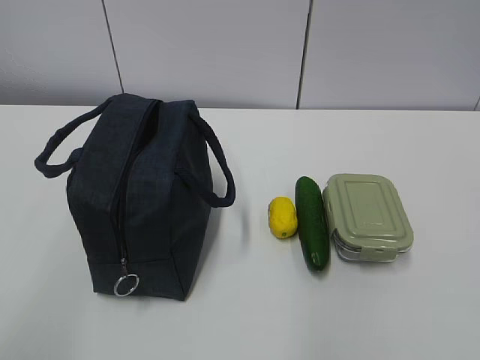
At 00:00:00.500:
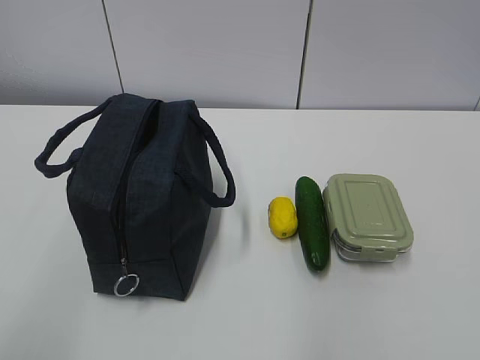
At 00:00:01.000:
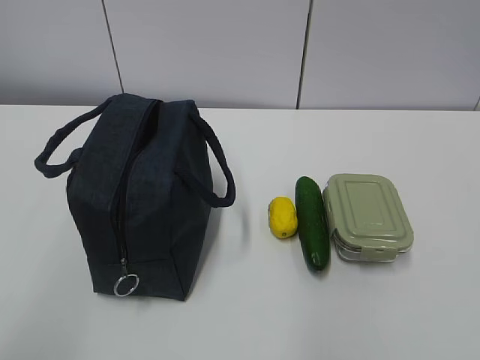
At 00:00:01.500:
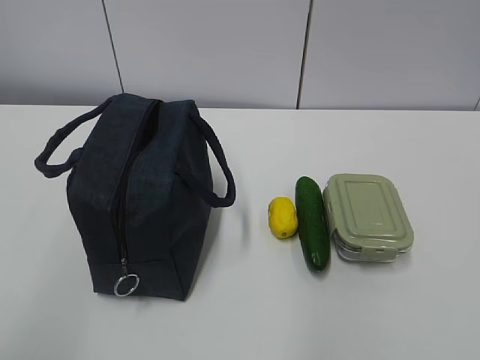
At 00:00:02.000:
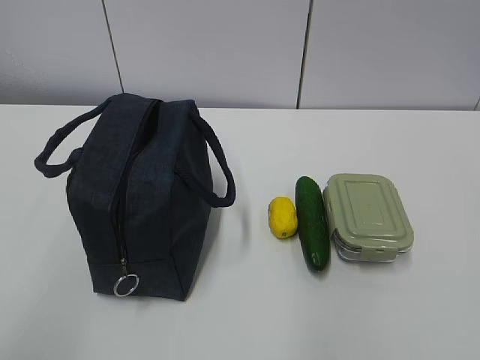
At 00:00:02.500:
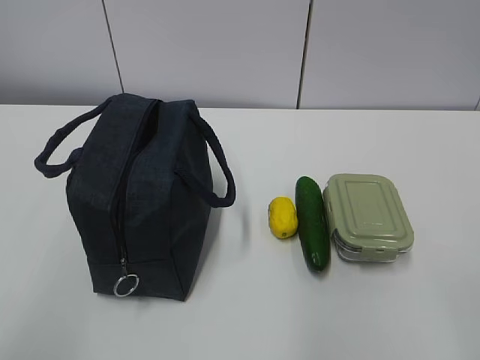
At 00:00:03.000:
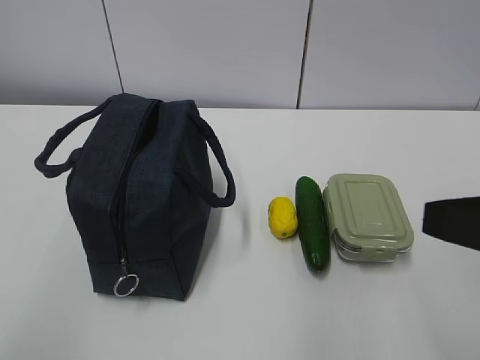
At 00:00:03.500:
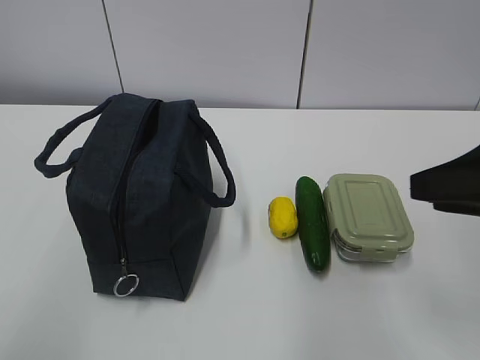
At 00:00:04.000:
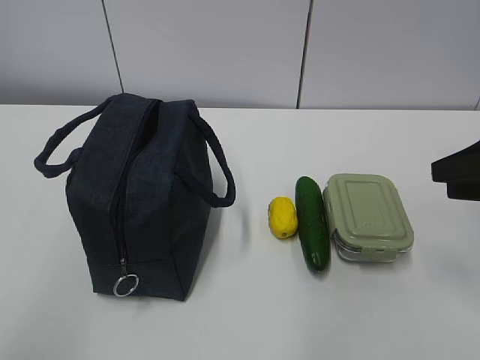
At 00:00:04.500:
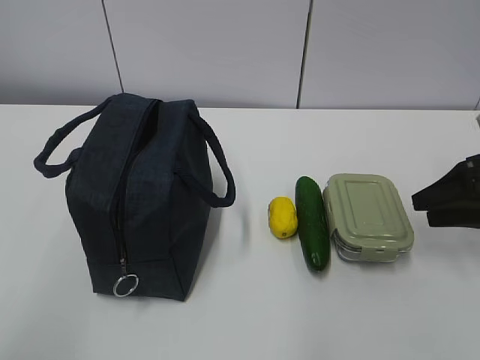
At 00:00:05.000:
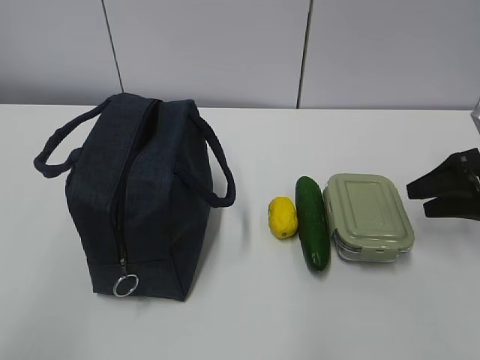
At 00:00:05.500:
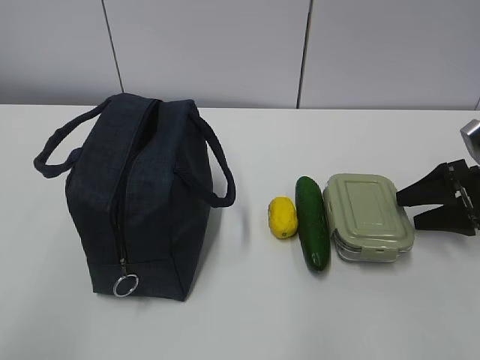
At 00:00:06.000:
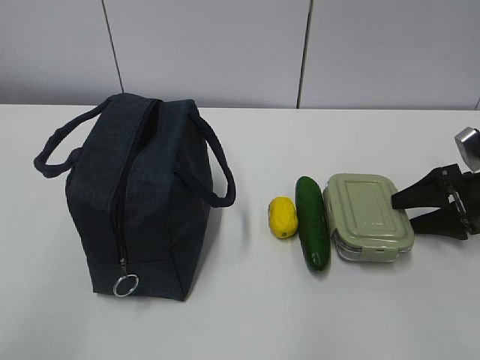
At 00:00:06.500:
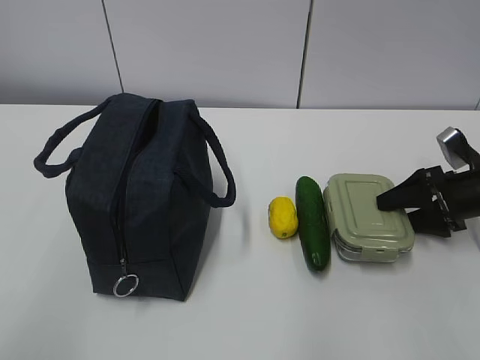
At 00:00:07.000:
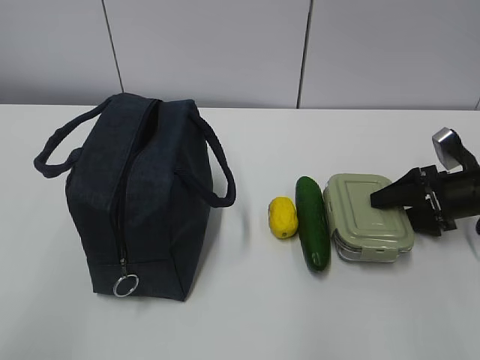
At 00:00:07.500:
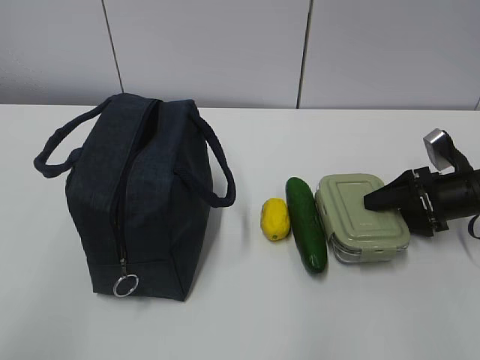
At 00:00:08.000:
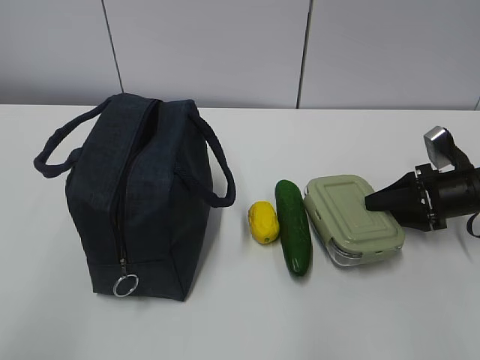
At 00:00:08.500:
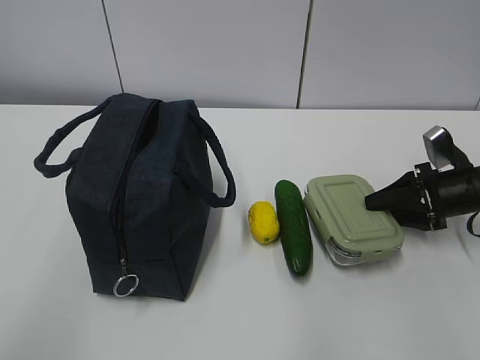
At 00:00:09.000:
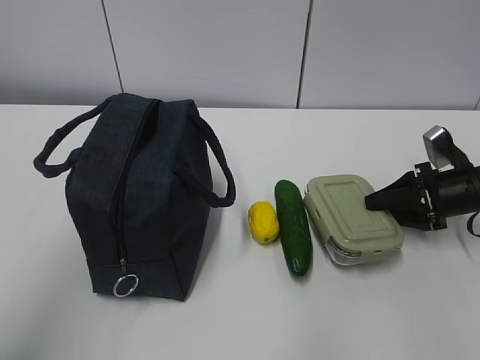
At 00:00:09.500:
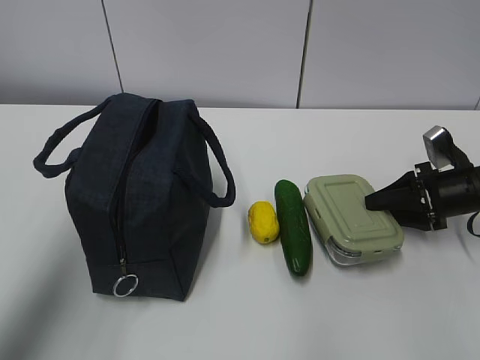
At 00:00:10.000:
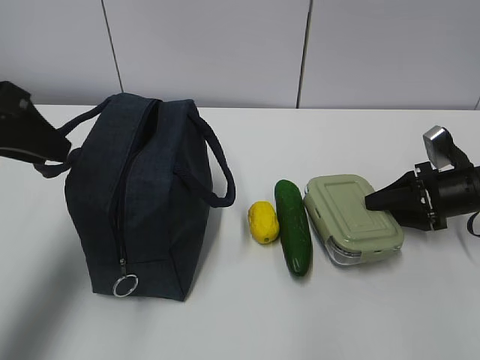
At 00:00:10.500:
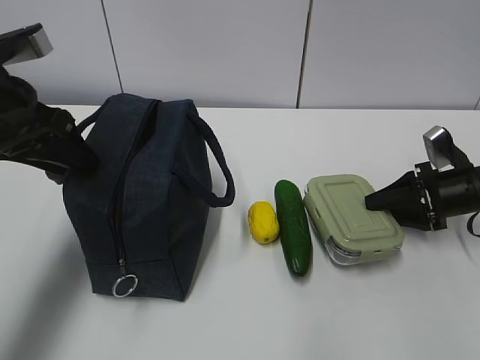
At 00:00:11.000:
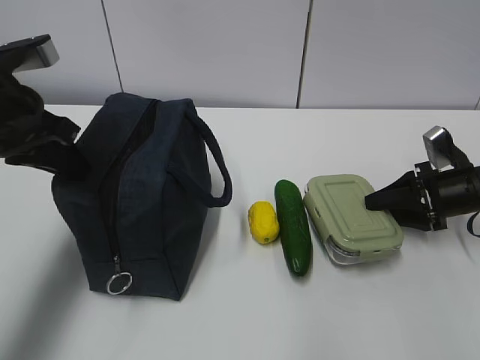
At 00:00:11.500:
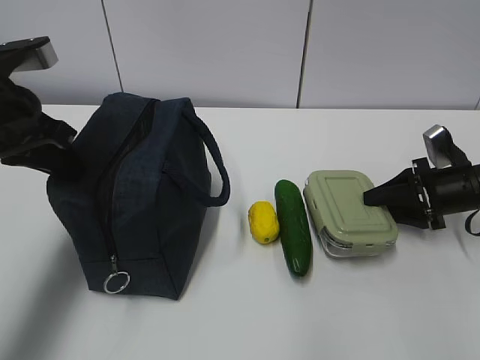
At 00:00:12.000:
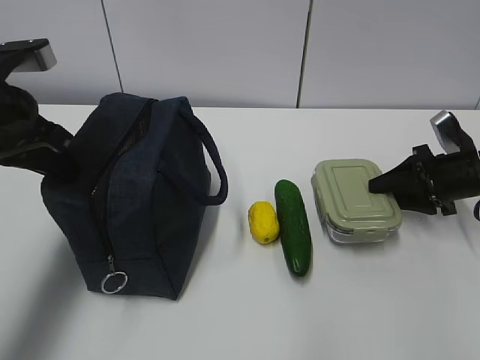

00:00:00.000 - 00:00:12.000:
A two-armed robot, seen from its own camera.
Step, 00:00:00.000 - 00:00:09.000: Grab the lunch box with your right hand.
00:00:02.000 - 00:00:04.000: The right gripper moves forward, some 30 cm.
00:00:04.000 - 00:00:06.000: The right gripper is displaced downward and forward by roughly 15 cm.
00:00:06.000 - 00:00:08.000: The right gripper closes its fingers.
00:00:08.000 - 00:00:10.000: The left gripper shifts about 25 cm forward.
00:00:10.000 - 00:00:12.000: The left gripper moves roughly 5 cm, and closes.

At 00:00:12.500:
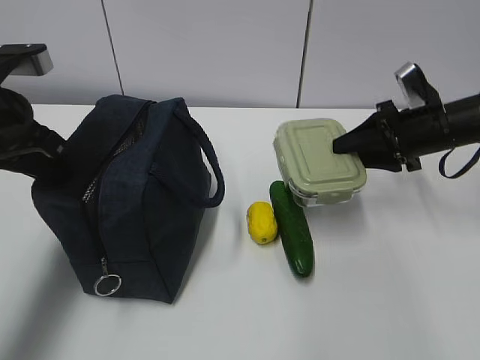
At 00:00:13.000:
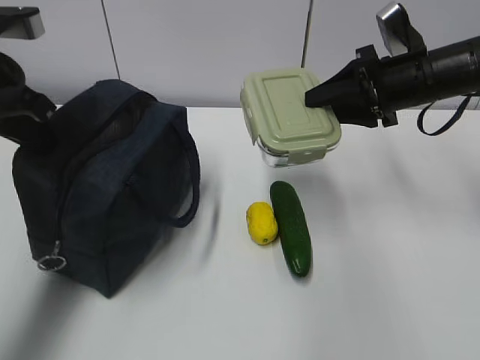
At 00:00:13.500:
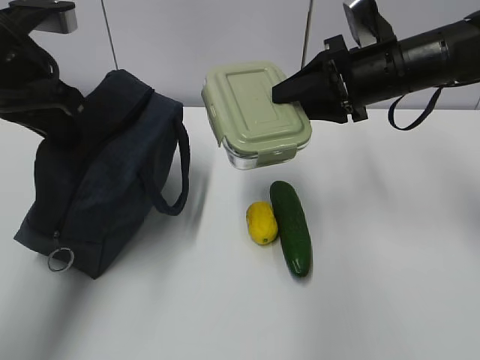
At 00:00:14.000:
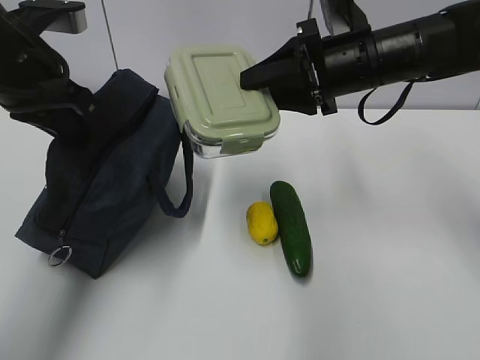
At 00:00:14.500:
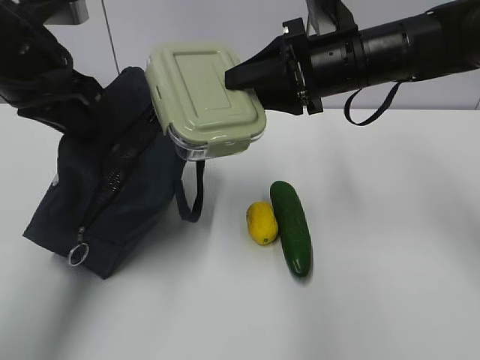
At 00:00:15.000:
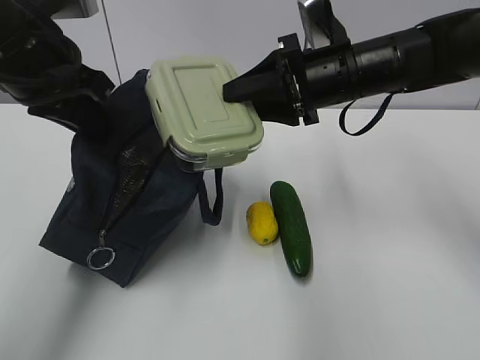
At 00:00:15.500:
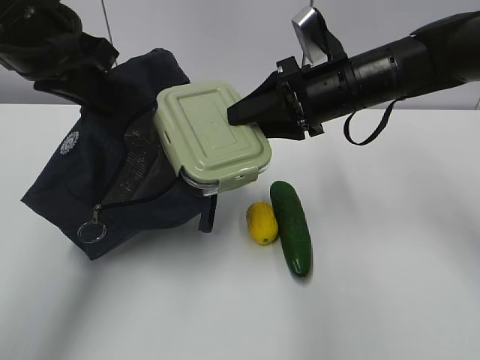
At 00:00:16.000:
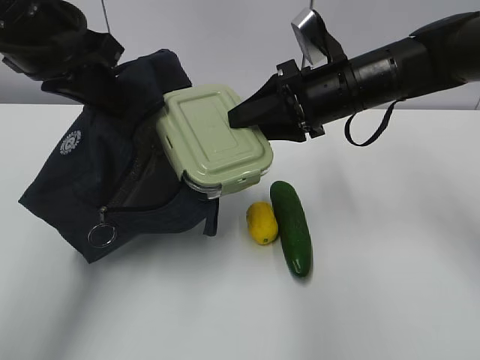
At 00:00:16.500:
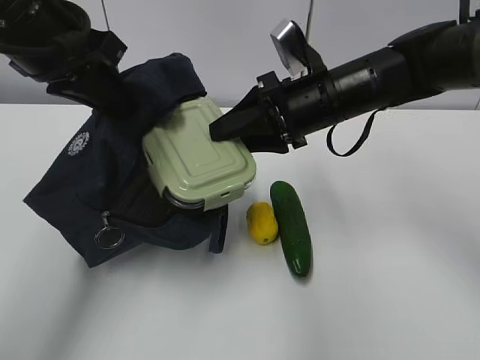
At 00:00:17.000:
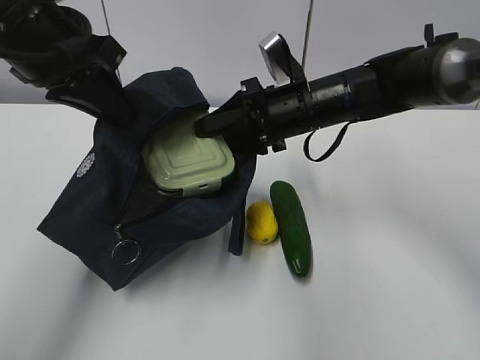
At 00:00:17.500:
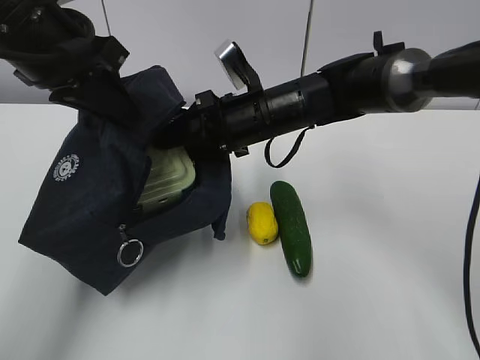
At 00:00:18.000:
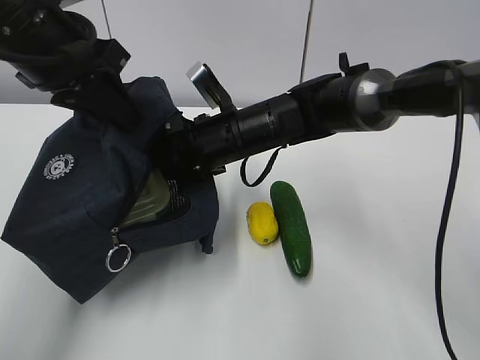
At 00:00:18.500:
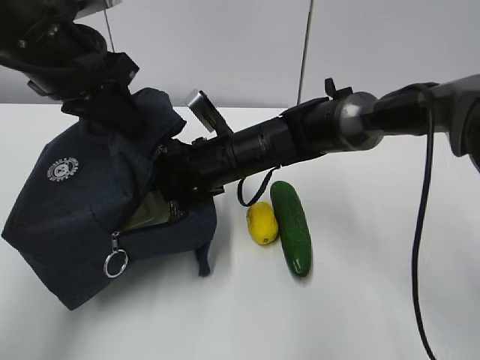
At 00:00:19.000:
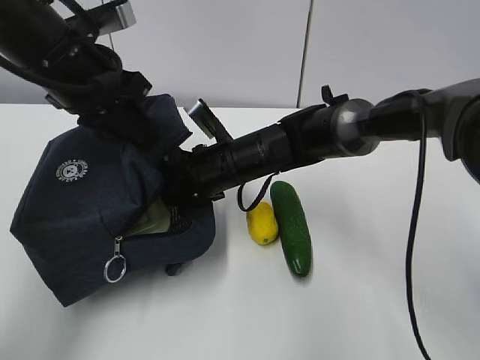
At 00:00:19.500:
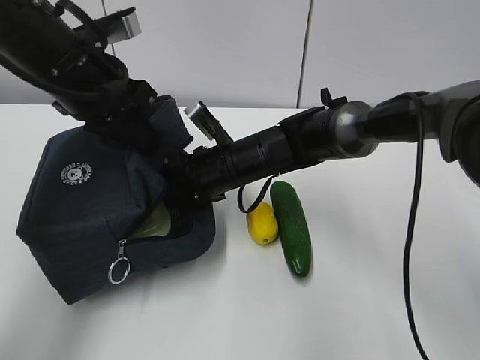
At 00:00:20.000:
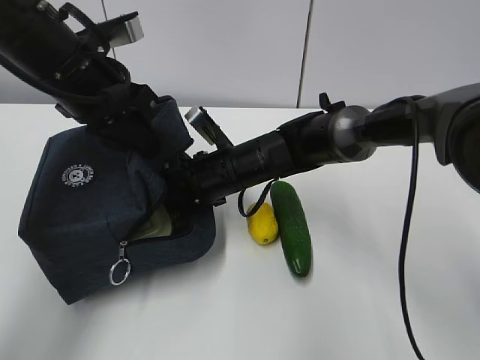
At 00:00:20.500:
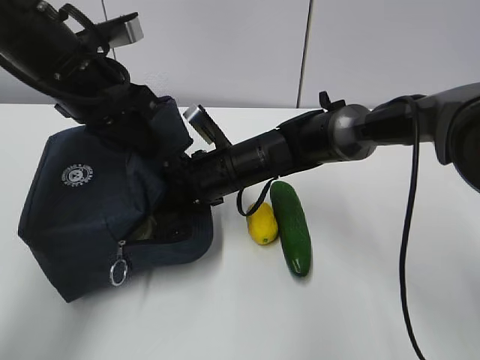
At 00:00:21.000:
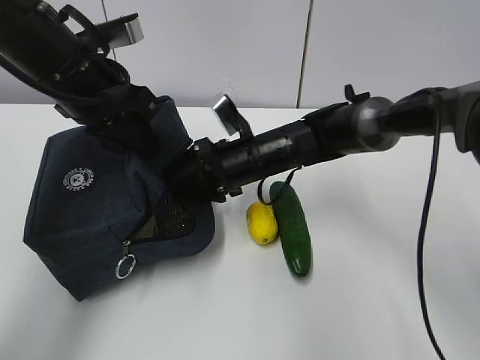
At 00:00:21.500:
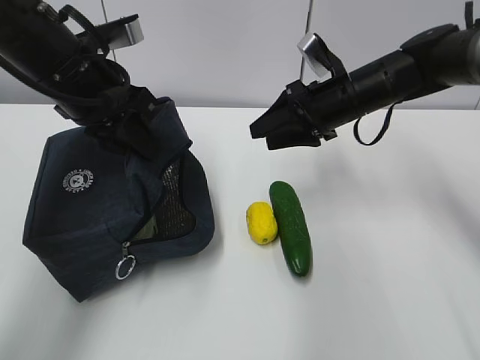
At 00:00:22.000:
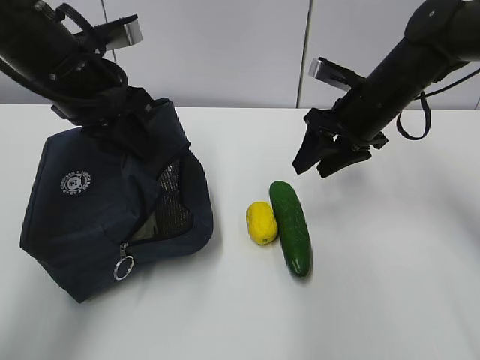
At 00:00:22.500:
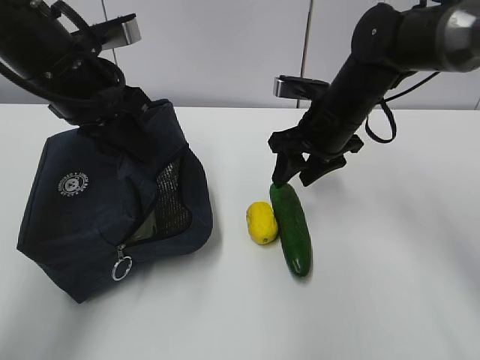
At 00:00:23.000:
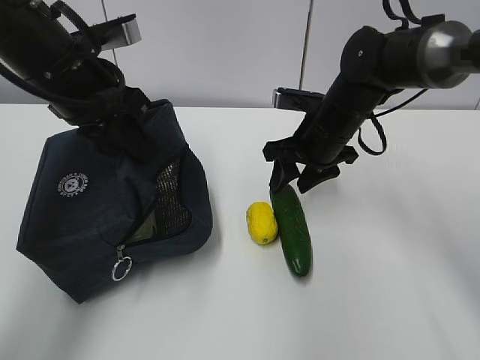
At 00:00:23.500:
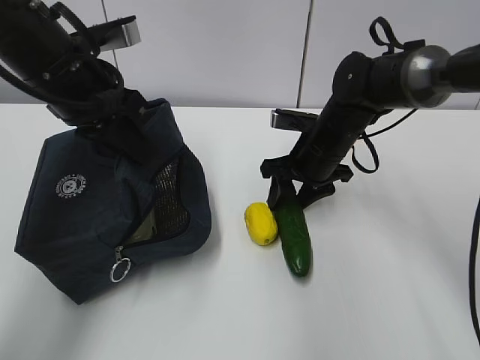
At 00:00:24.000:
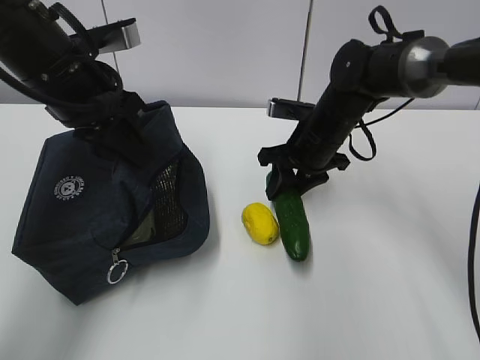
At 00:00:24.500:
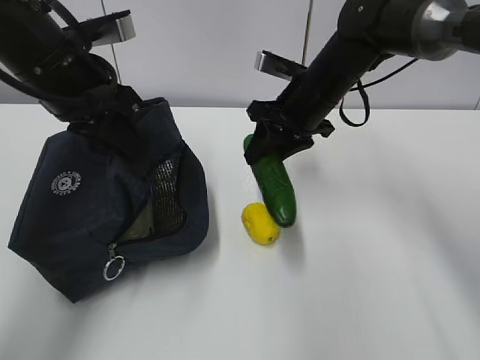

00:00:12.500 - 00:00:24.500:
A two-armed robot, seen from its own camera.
Step, 00:00:12.500 - 00:00:17.000: Place it into the bag with your right hand.
Step, 00:00:17.500 - 00:00:19.500: Grab the cucumber with your right hand.
Step, 00:00:20.000 - 00:00:22.500: Place it into the bag with your right hand.
00:00:12.500 - 00:00:14.500: The left gripper moves roughly 5 cm, while the right gripper heads to the left and upward, covering approximately 15 cm.
00:00:16.500 - 00:00:18.500: The right gripper heads to the left and downward, covering approximately 15 cm.
00:00:18.500 - 00:00:20.500: There are only small adjustments of the grippers.
00:00:20.500 - 00:00:22.500: The right gripper shifts approximately 15 cm to the right and upward.
00:00:22.500 - 00:00:24.500: There are only small adjustments of the grippers.

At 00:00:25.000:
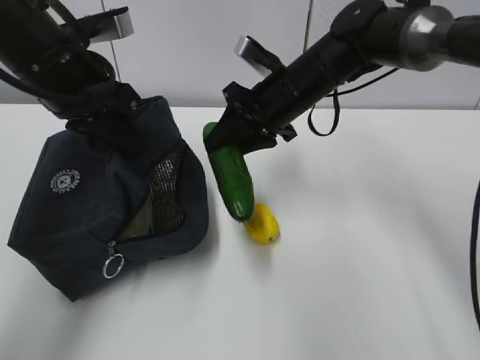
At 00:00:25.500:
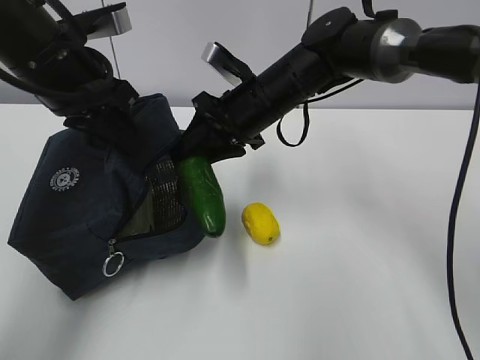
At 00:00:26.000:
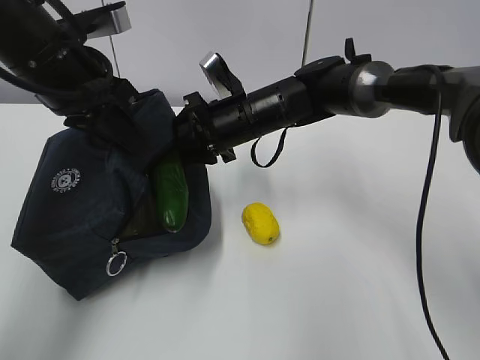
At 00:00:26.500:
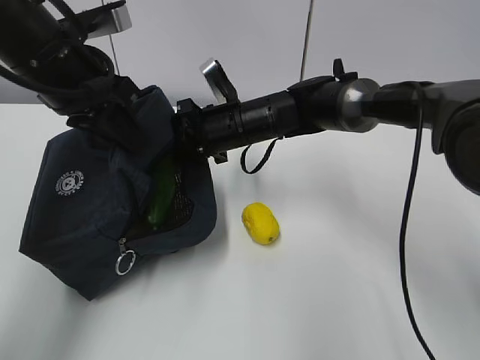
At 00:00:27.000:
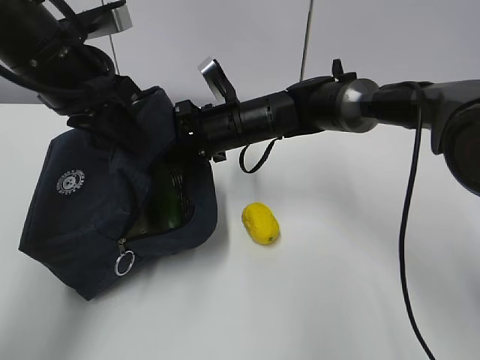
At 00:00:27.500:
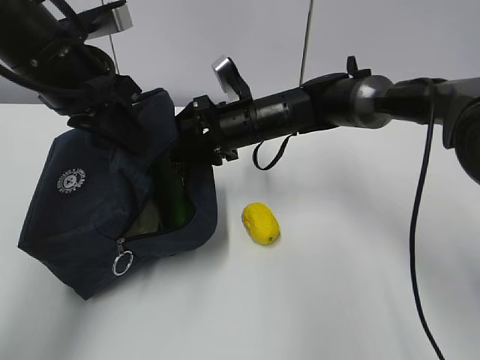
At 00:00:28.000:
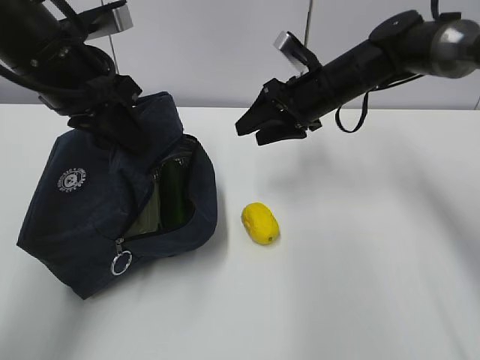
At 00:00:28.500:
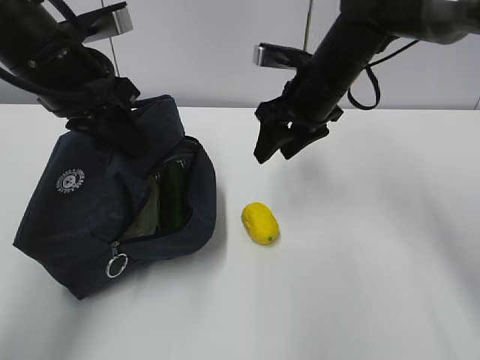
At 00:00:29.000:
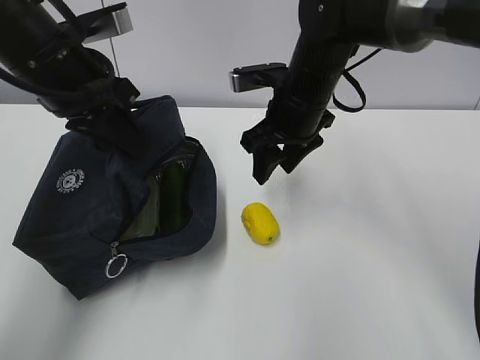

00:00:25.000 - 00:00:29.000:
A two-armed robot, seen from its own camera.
00:00:25.000 - 00:00:27.000: The right gripper is displaced to the left and downward by about 10 cm.
00:00:27.000 - 00:00:29.000: The right gripper heads to the right and upward, covering approximately 10 cm.